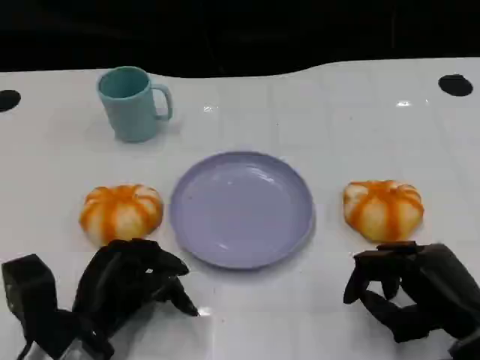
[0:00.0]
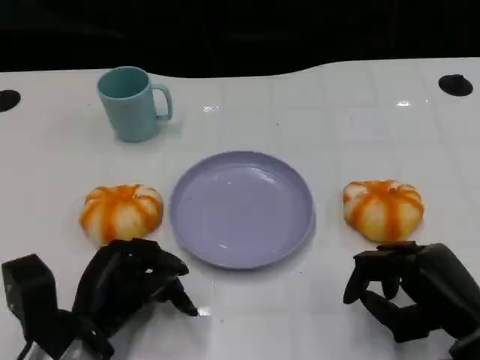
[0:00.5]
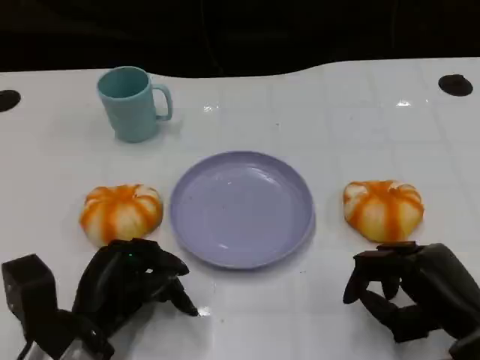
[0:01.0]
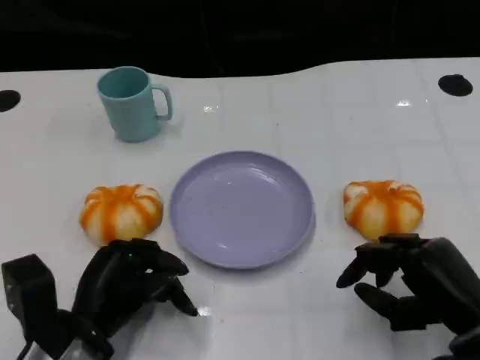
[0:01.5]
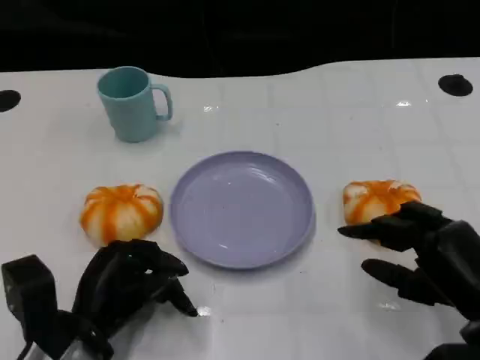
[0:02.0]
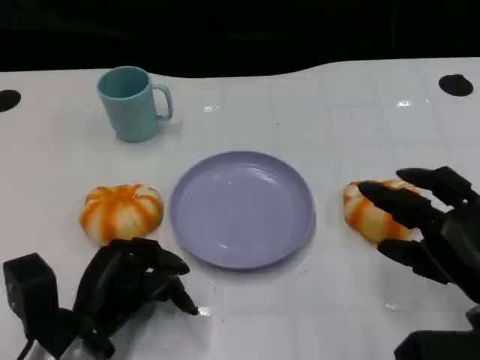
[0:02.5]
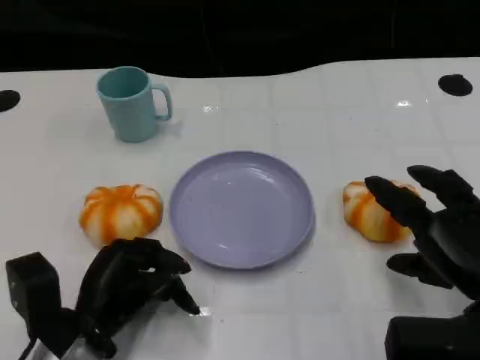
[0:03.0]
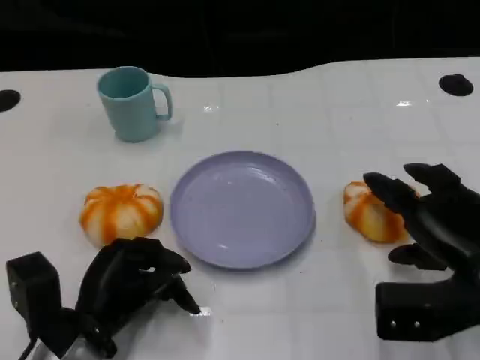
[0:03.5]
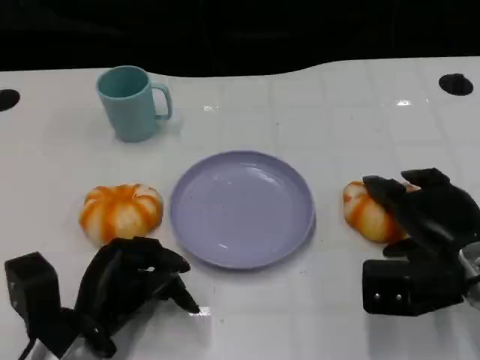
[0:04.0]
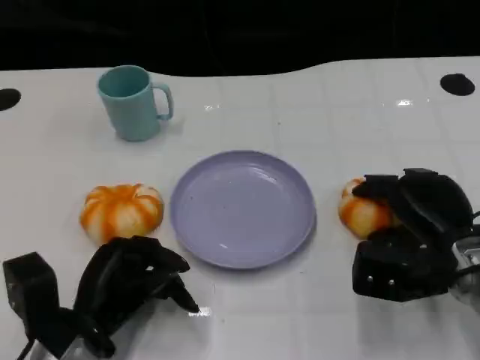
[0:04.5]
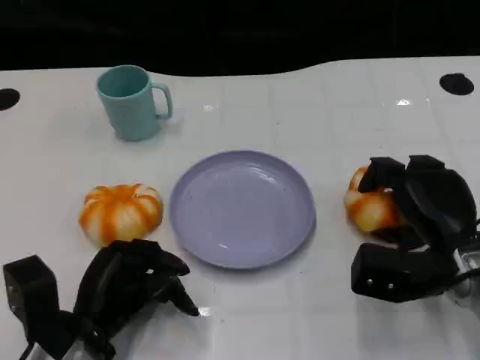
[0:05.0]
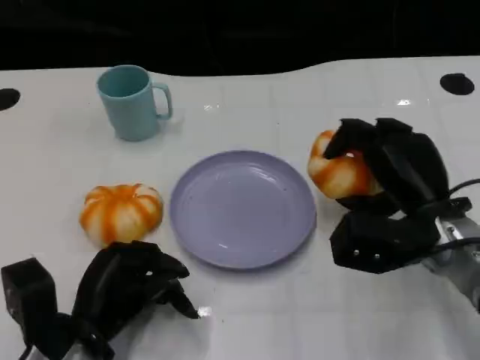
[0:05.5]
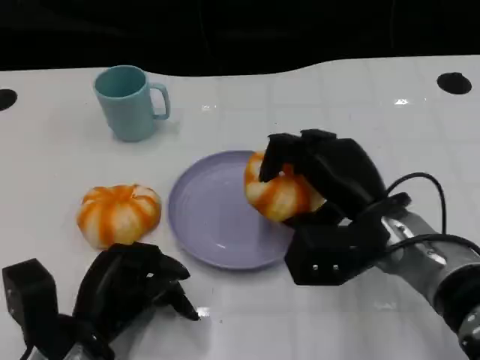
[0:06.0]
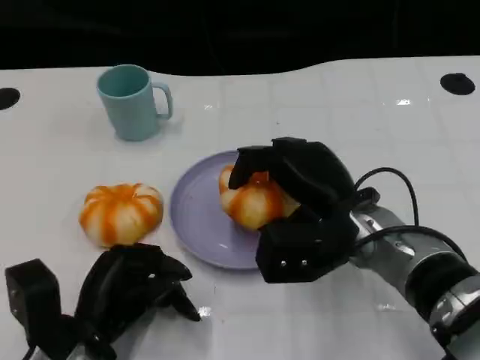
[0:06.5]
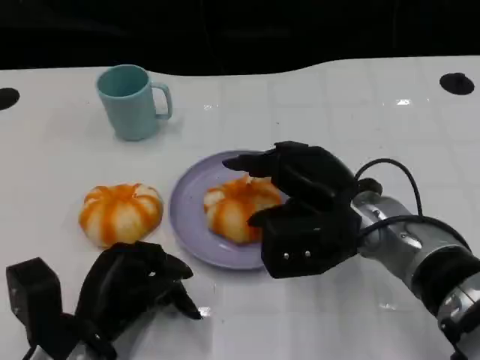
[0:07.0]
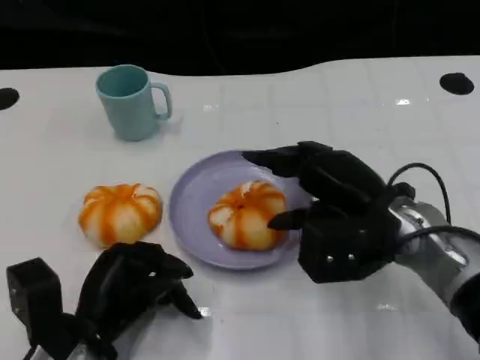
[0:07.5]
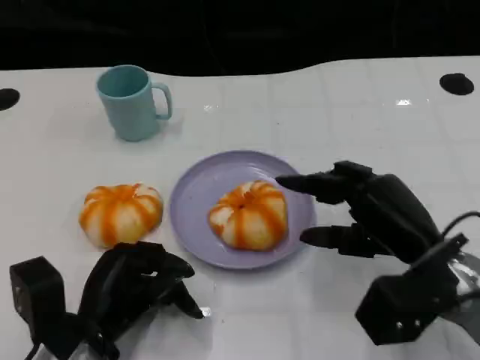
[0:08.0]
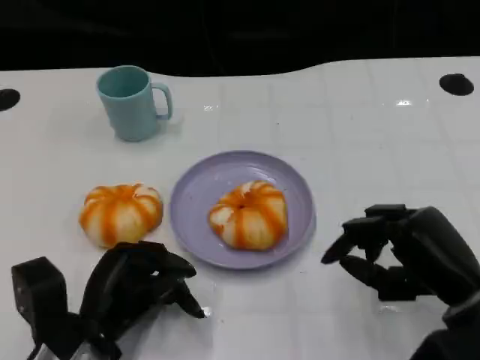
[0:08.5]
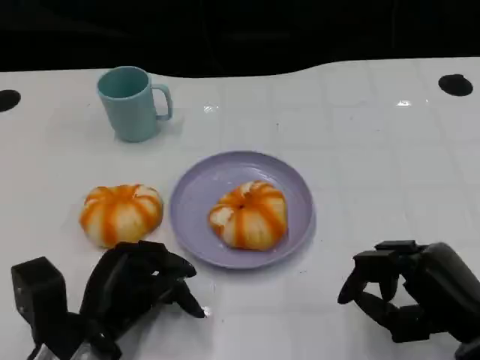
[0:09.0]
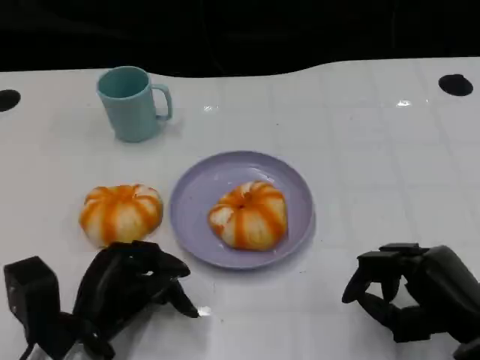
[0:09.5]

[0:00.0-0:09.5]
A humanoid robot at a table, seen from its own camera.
Task of the whole recording: Grasp the bread from the table and place it into the plate.
0.0 to 2.0 s: There are only small adjustments of the hands.
2.0 to 4.0 s: The right hand travels forward by approximately 5 cm.
4.0 to 5.5 s: The right hand changes place by approximately 5 cm.
7.5 to 9.5 s: The right hand heads backward, to the right and downward, covering some 15 cm.

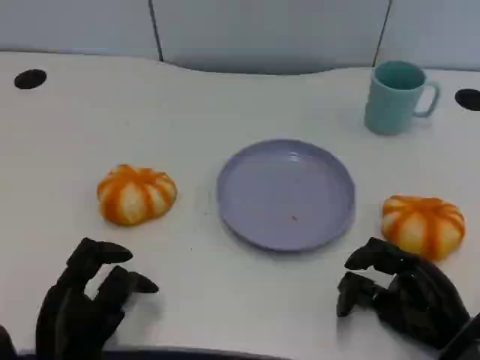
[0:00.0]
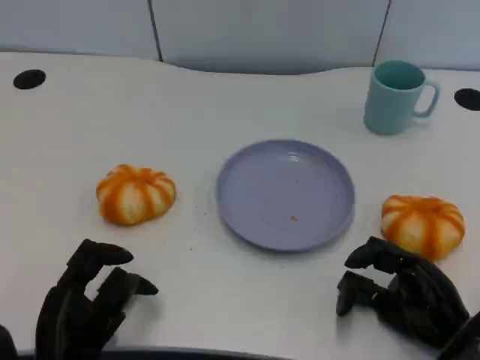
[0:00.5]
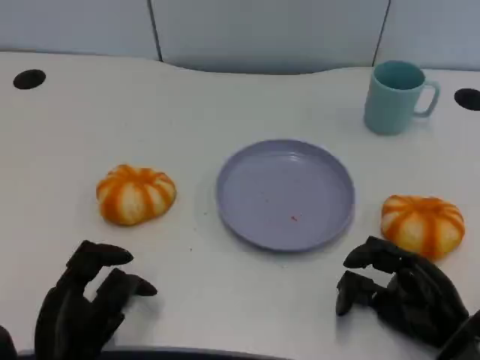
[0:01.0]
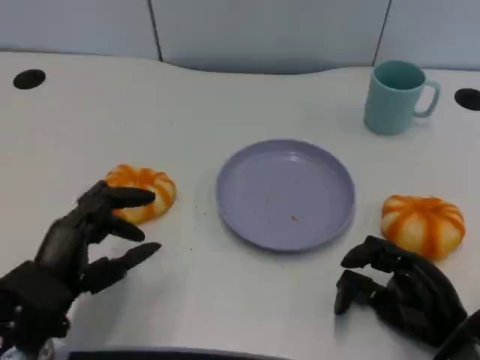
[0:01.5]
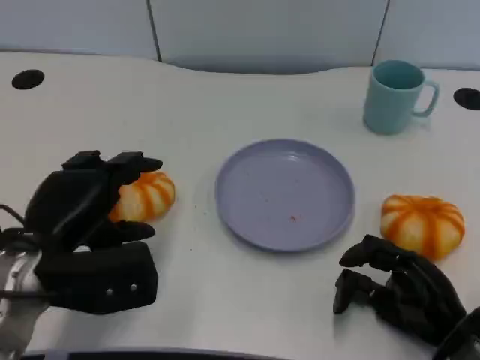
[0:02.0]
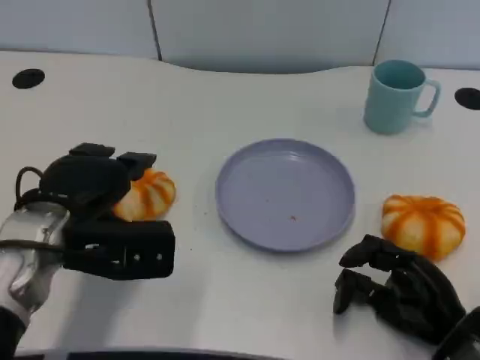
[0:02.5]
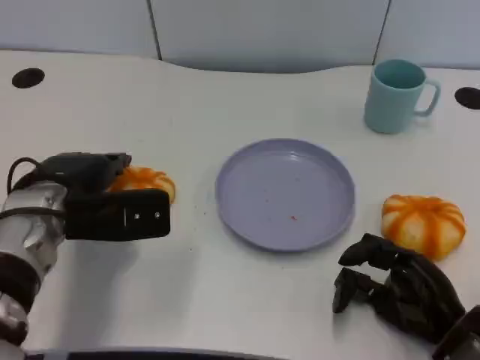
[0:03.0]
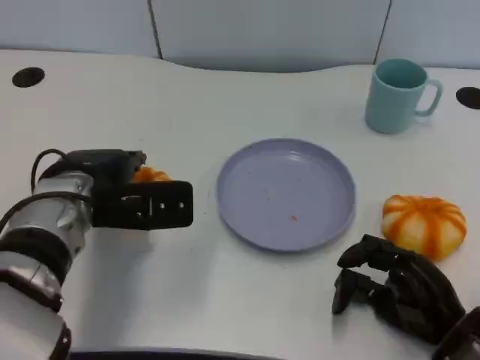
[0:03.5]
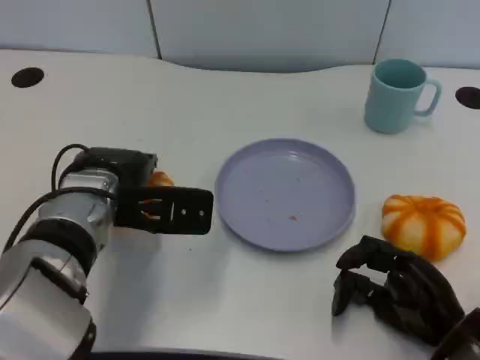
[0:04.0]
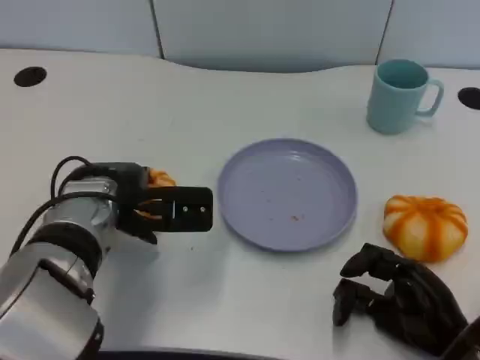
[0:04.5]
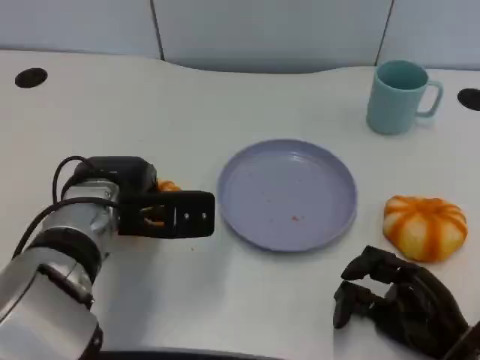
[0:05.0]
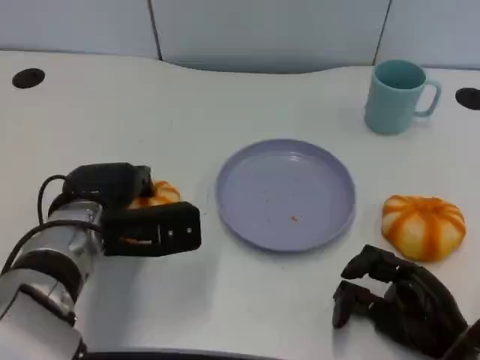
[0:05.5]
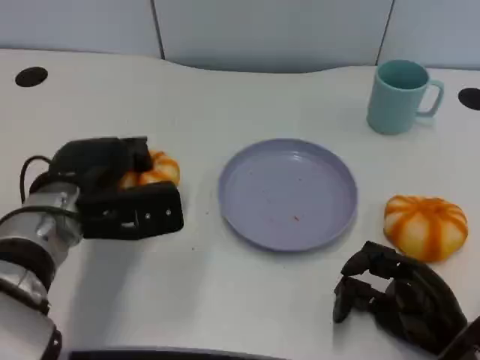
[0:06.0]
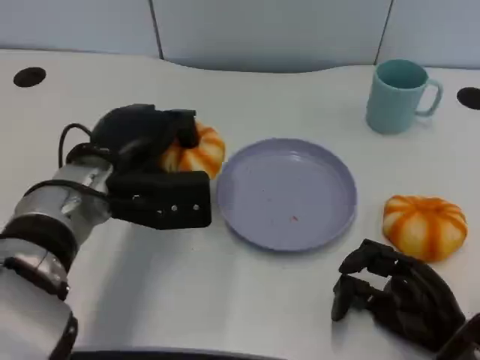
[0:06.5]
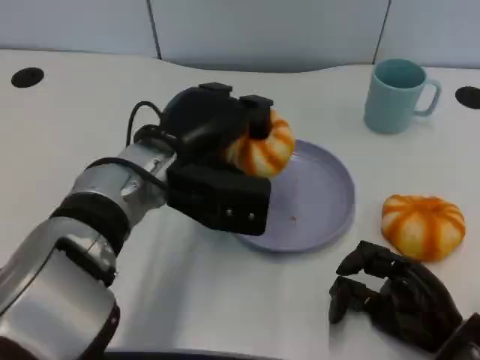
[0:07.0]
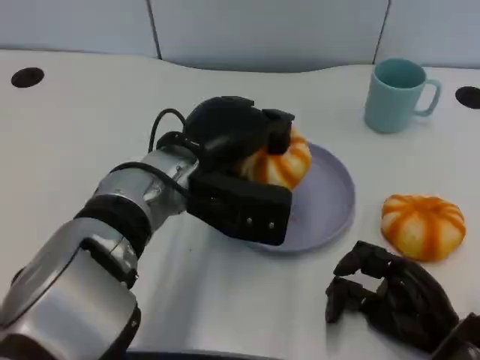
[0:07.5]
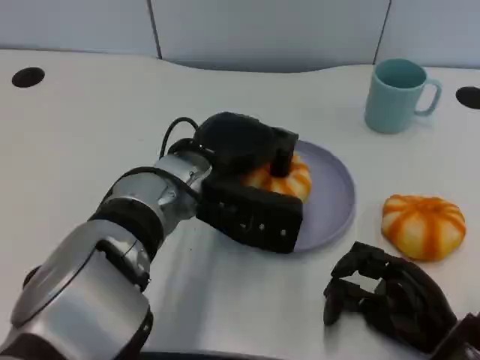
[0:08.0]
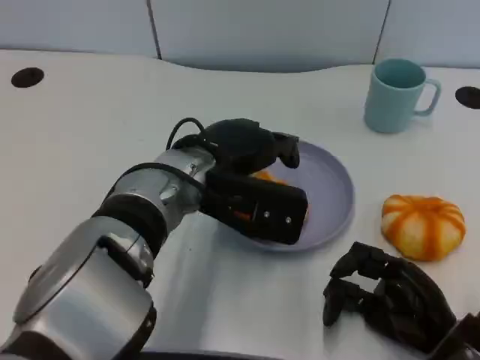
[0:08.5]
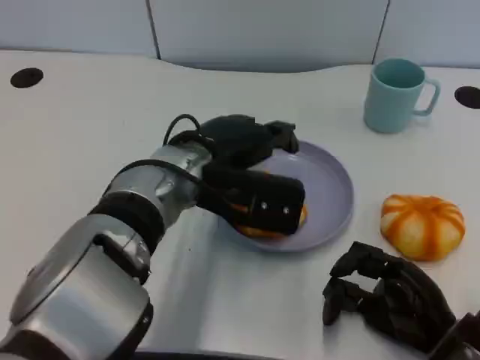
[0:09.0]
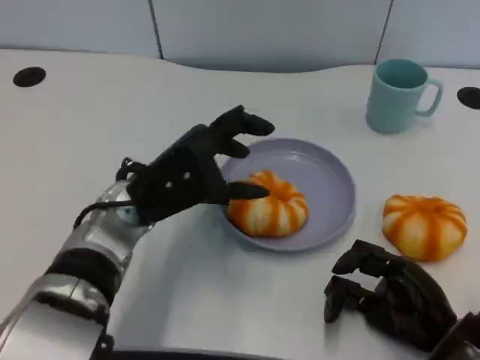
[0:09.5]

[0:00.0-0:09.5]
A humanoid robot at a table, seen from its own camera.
Task of the whole recording: Grasp the bread from the table and place it into the plate.
0.0 to 2.0 s: The left hand heads upward and forward, covering about 15 cm.
2.0 to 4.0 s: The left hand heads forward and to the right, covering some 10 cm.
4.0 to 5.5 s: The hands stay close to where they were, moving slightly.
5.5 to 7.5 s: The left hand is displaced to the right and upward by some 10 cm.
7.5 to 9.5 s: The left hand goes some 5 cm to the left.

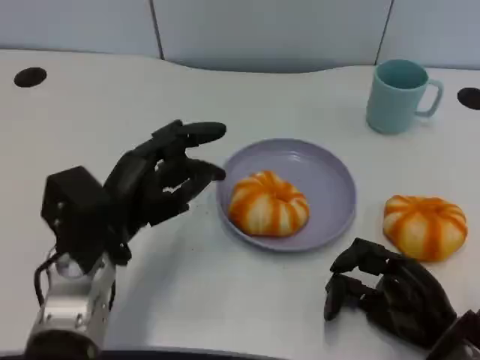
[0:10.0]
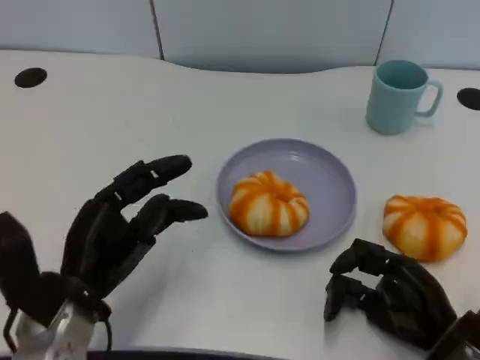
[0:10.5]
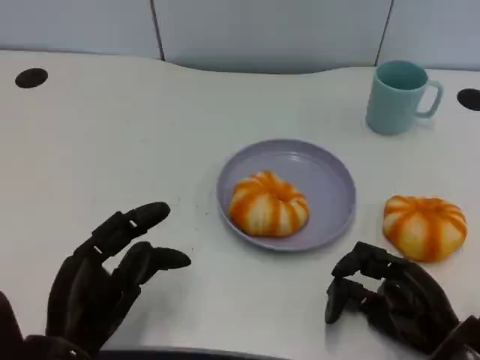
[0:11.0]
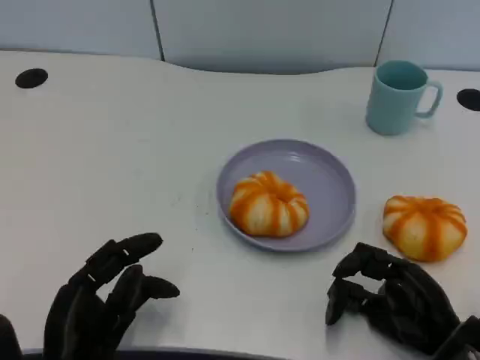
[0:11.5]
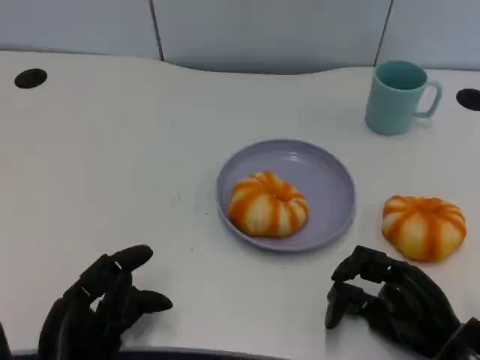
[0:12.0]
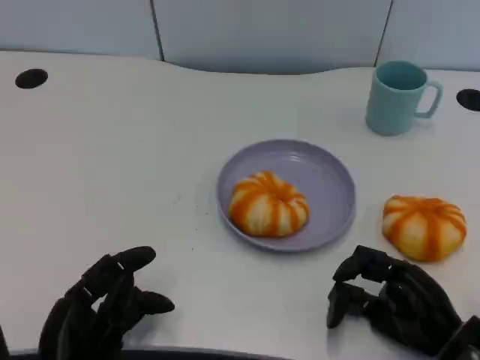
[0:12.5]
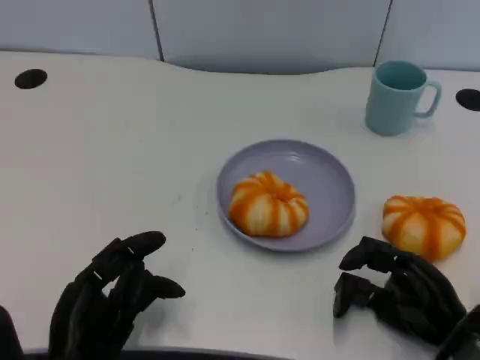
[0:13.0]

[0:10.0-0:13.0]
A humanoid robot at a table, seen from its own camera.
Task of the whole recording: Grasp the bread from the table and place it into the plate.
10.0 to 11.5 s: The left hand travels backward and downward by some 10 cm.
11.5 to 13.0 s: There are only small adjustments of the hands.

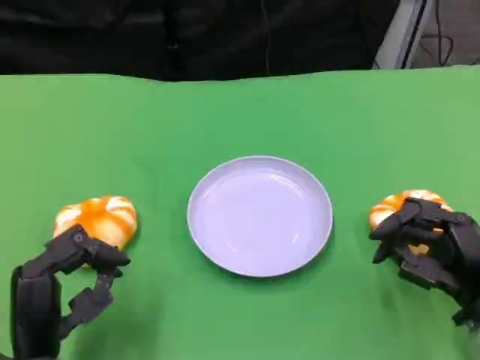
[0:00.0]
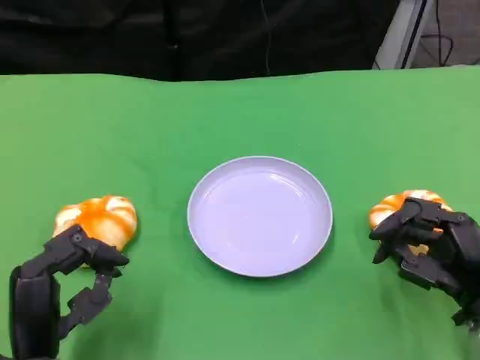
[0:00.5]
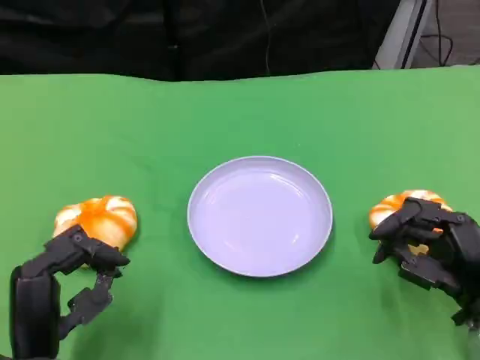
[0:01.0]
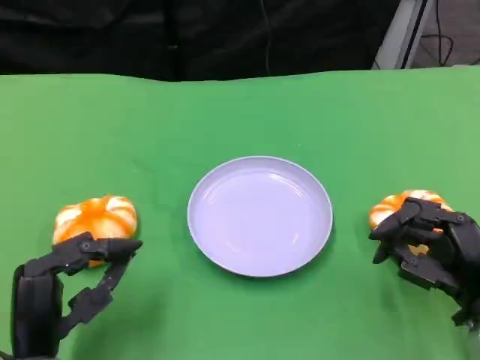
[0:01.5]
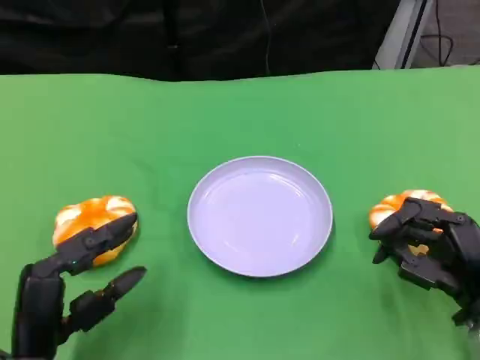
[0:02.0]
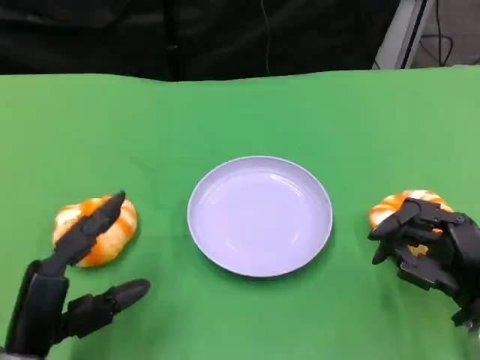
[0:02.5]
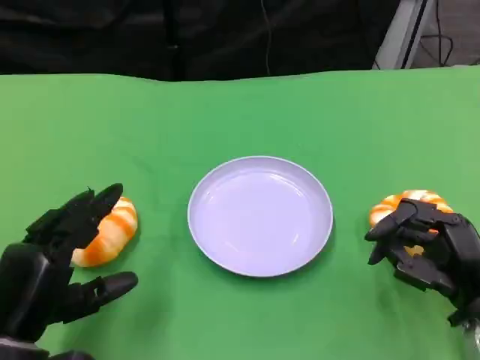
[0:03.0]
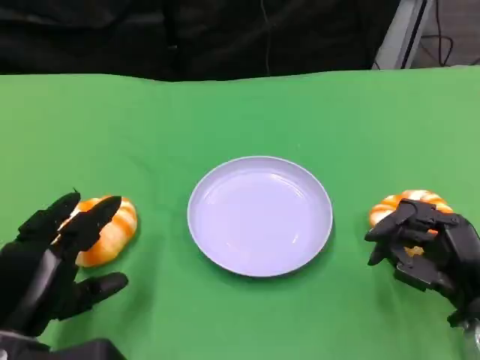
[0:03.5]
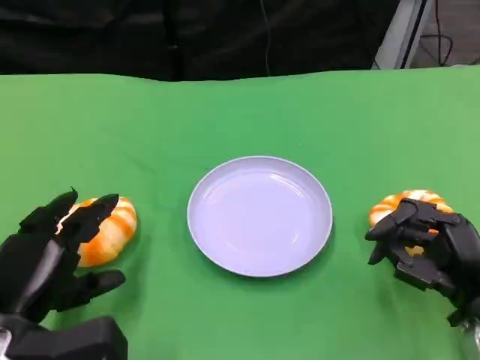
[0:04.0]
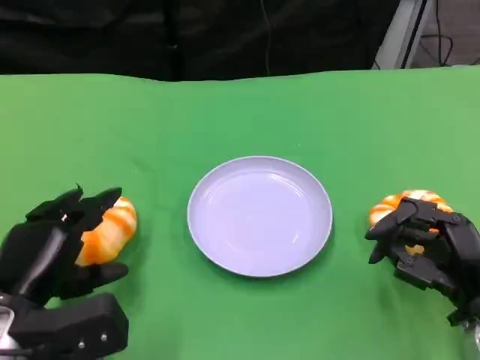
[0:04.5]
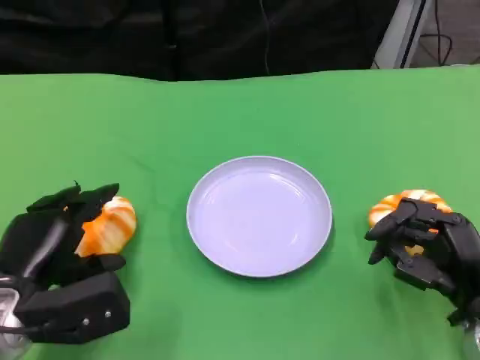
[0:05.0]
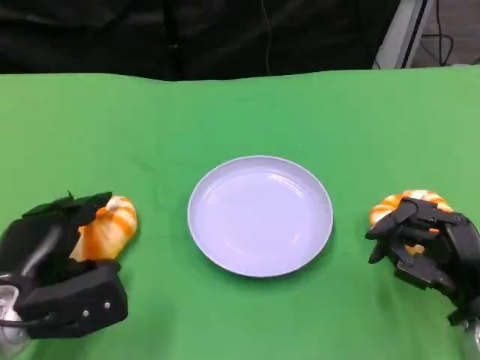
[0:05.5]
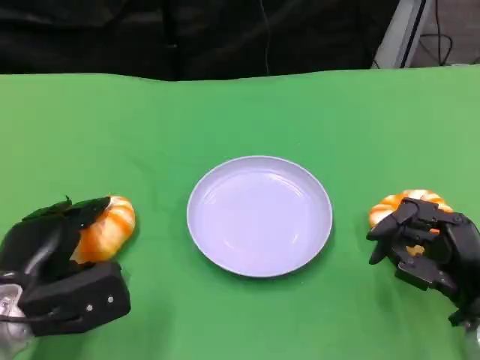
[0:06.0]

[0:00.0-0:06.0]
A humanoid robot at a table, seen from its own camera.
Task of the whole recording: Grasp the bread from the table and place it into the plate.
0.0 to 2.0 s: There are only small adjustments of the hands.
4.0 to 6.0 s: There are only small adjustments of the hands.
